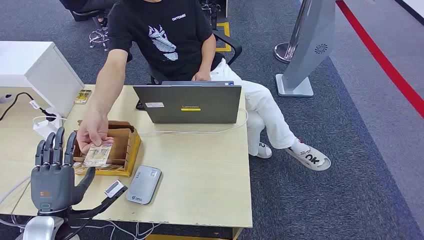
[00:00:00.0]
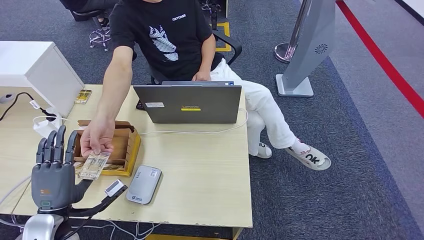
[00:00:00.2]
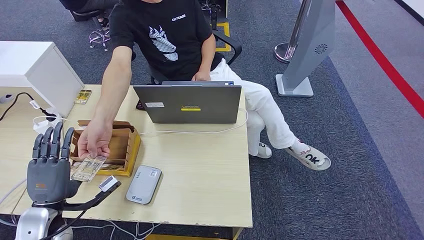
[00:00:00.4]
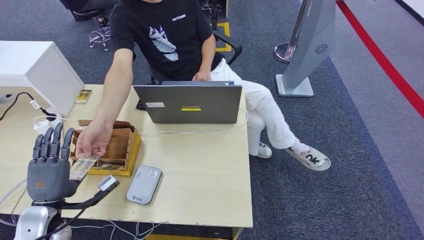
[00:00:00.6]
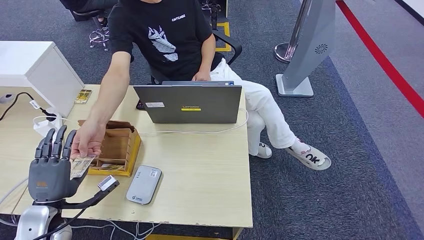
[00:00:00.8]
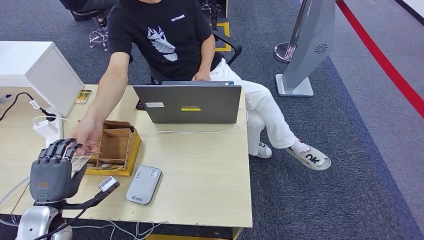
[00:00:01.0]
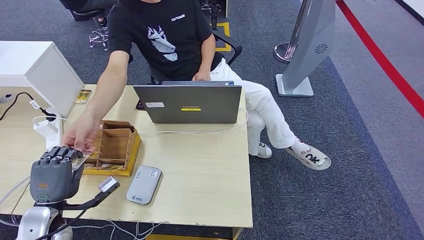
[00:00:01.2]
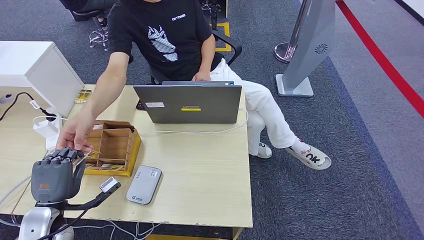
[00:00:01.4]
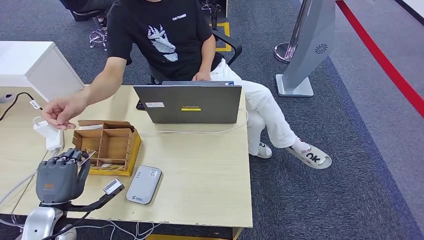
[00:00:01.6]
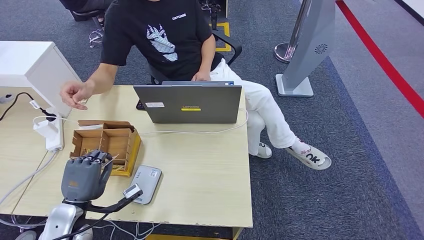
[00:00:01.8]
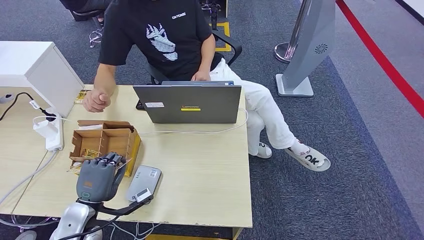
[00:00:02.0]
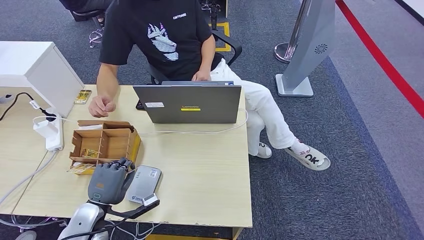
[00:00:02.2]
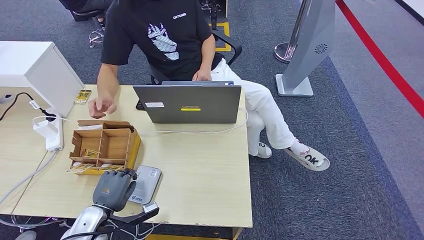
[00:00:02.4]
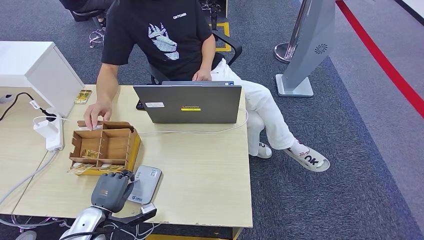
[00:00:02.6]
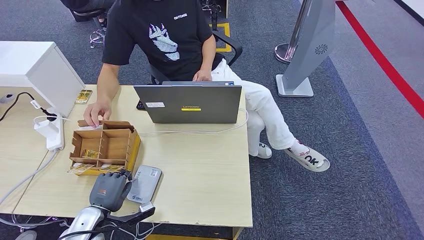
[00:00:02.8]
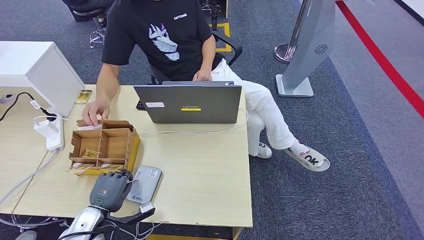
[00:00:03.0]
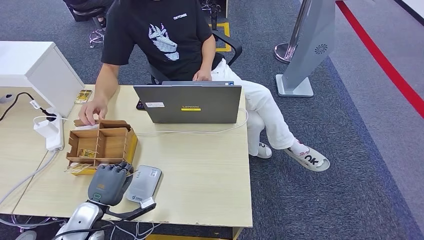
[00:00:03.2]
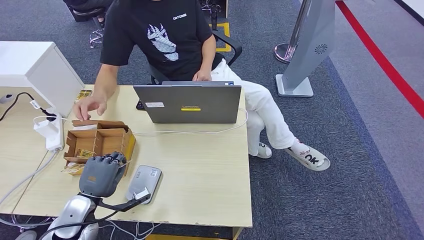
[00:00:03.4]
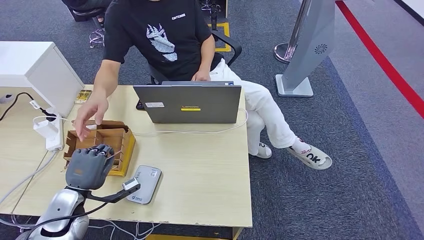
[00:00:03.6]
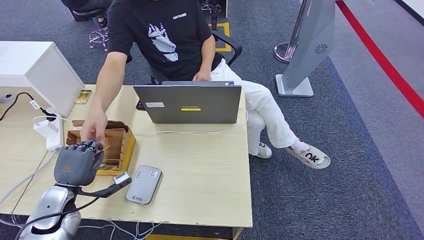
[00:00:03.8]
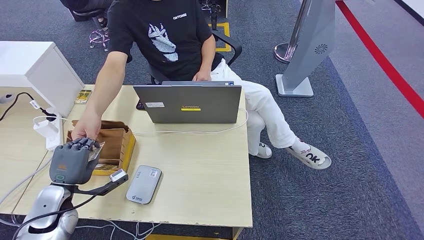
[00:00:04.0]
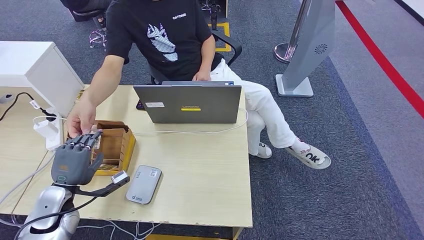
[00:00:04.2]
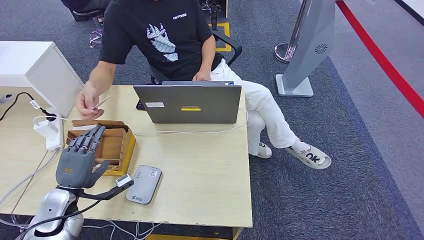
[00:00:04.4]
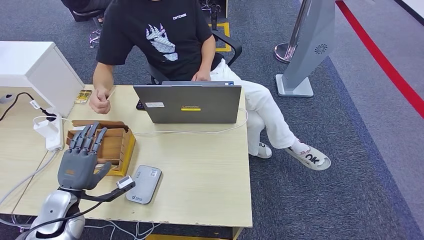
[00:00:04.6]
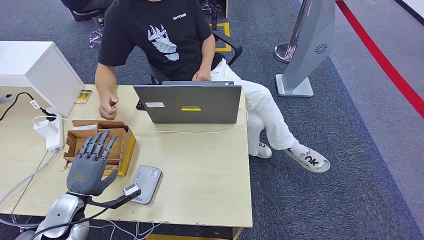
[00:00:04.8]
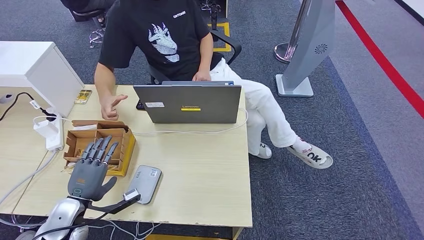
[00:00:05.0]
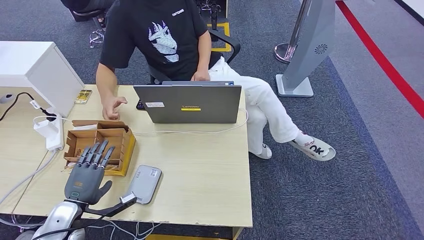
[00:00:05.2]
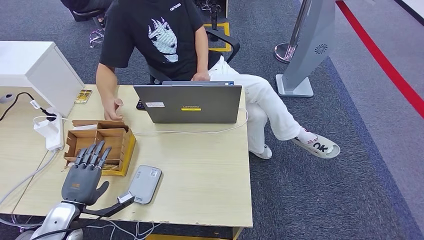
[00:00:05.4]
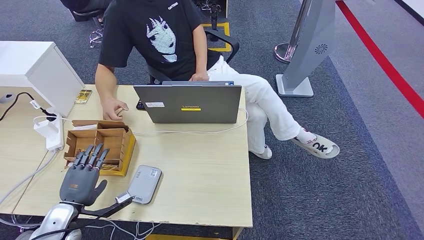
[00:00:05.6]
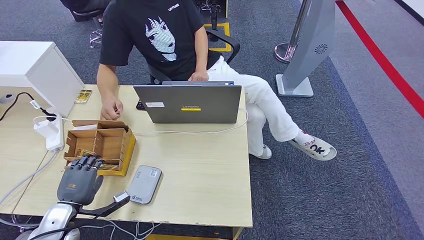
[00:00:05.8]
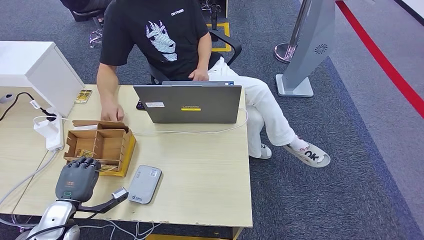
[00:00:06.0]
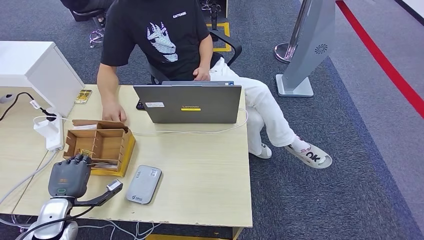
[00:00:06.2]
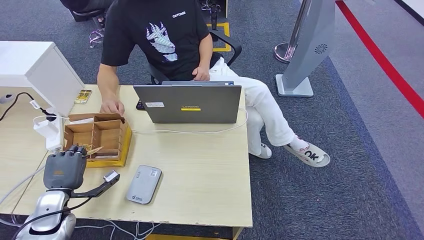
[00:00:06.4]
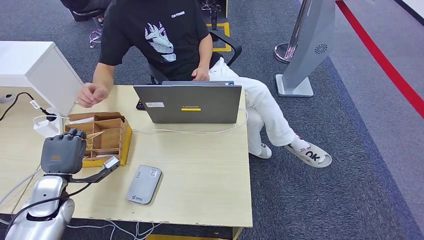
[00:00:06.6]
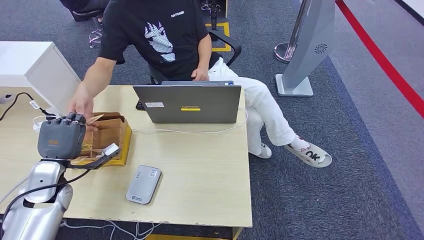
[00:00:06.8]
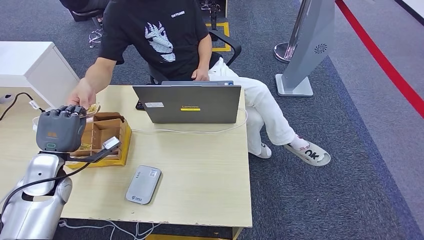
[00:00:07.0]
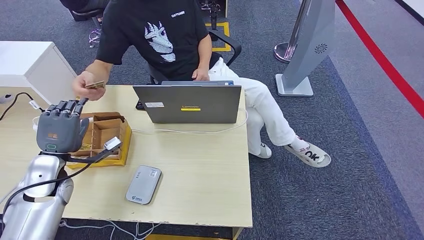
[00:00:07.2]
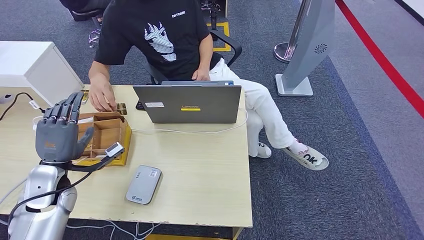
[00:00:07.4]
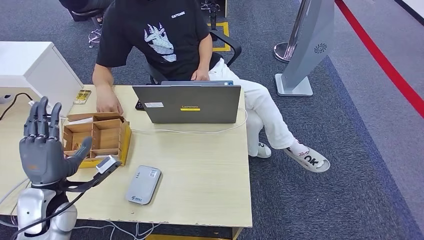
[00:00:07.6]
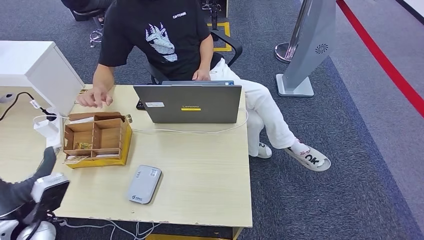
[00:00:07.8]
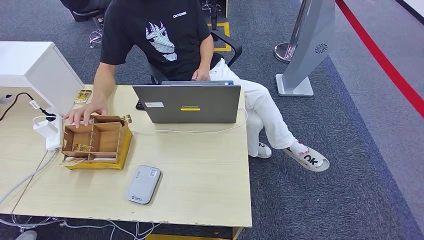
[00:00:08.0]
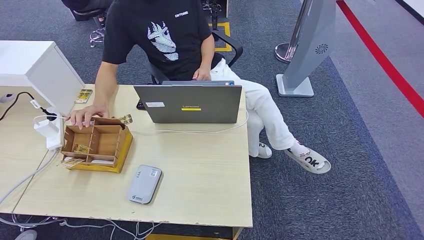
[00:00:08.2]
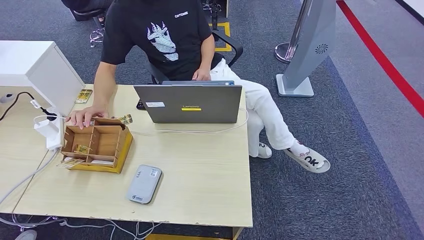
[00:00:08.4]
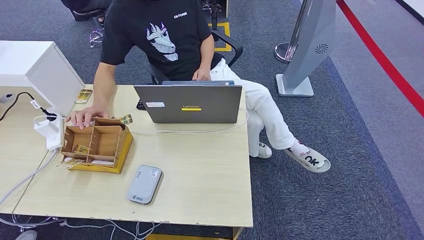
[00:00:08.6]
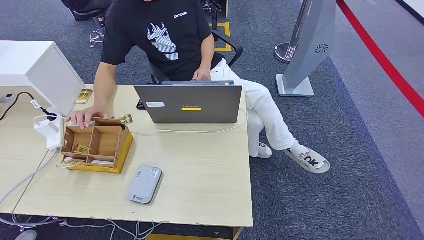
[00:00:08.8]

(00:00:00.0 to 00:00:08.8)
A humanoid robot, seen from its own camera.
Step, 00:00:00.0 - 00:00:02.0: Take the ID card from the person's hand.
Step, 00:00:02.2 - 00:00:03.2: Place the ID card on the card reader.
Step, 00:00:03.4 - 00:00:05.8: Hand the ID card to the person.
Step, 00:00:06.0 - 00:00:06.2: Pick up the room key from the key card box.
Step, 00:00:06.4 - 00:00:08.8: Hand the room key to the person.
00:00:01.4 - 00:00:03.0: The left hand moves downward and to the right, roughly 10 cm.
00:00:03.0 - 00:00:04.4: The left hand heads upward, covering about 5 cm.
00:00:04.4 - 00:00:05.8: The left hand moves approximately 5 cm.
00:00:05.8 - 00:00:07.4: The left hand is displaced upward and forward by roughly 10 cm.
00:00:07.4 - 00:00:08.8: The left hand travels downward and backward by about 35 cm.
